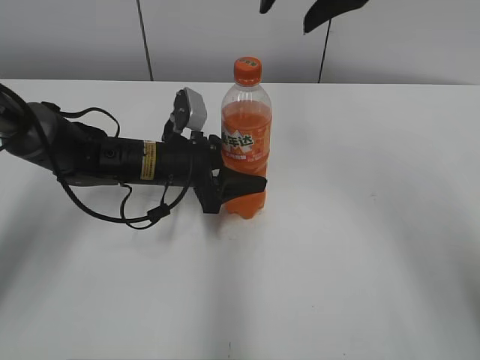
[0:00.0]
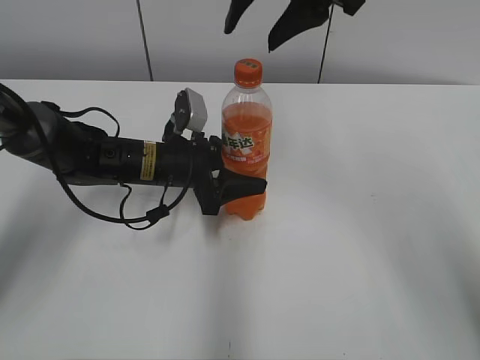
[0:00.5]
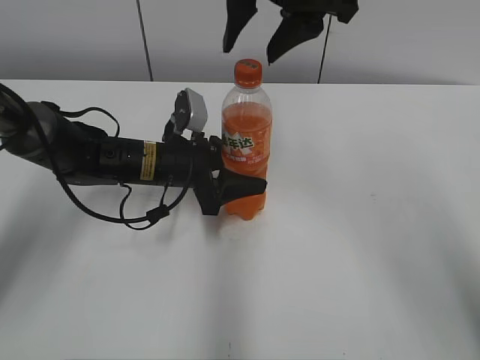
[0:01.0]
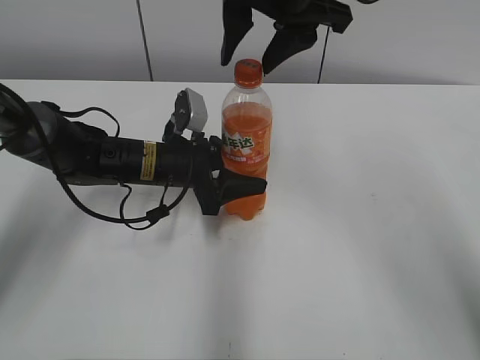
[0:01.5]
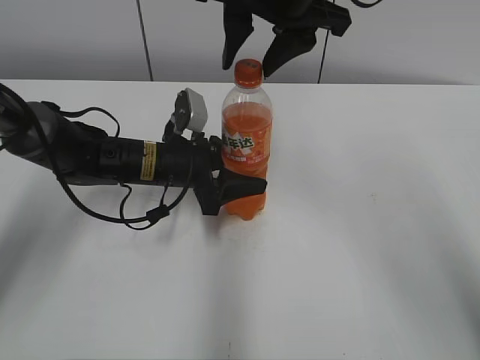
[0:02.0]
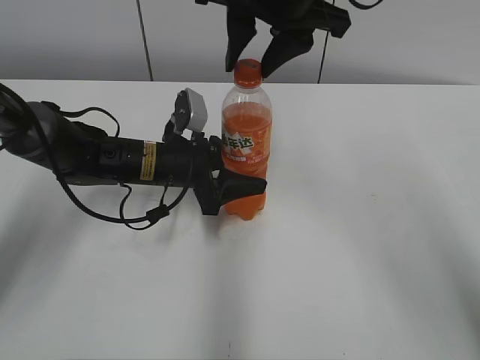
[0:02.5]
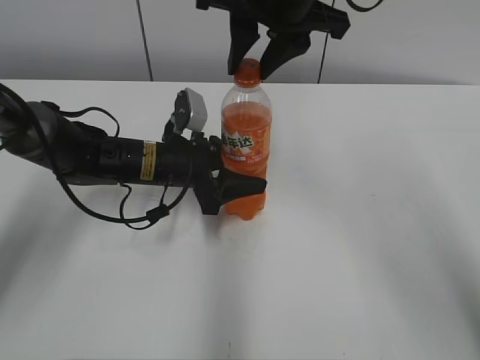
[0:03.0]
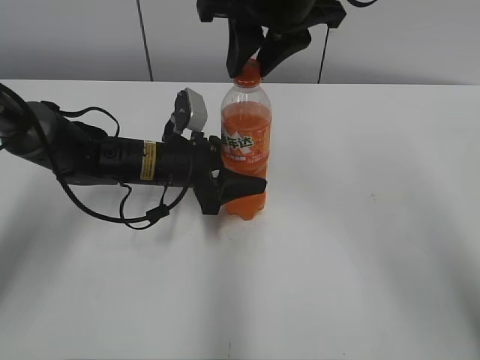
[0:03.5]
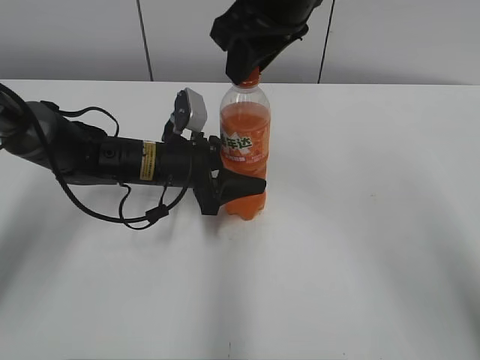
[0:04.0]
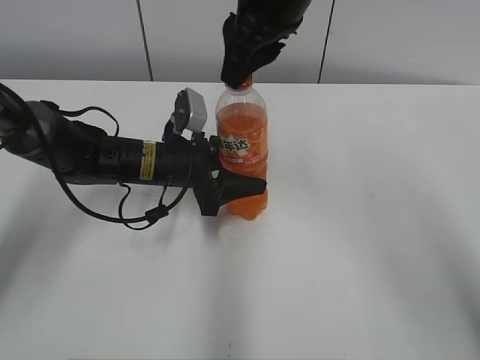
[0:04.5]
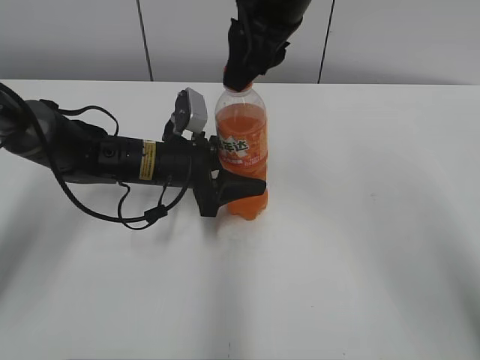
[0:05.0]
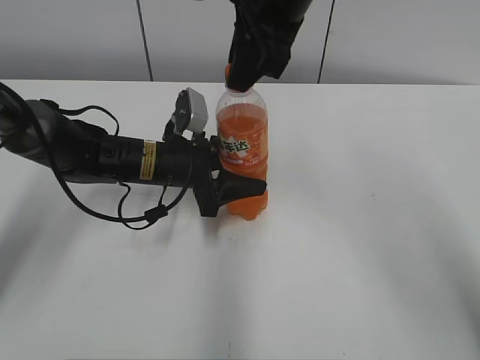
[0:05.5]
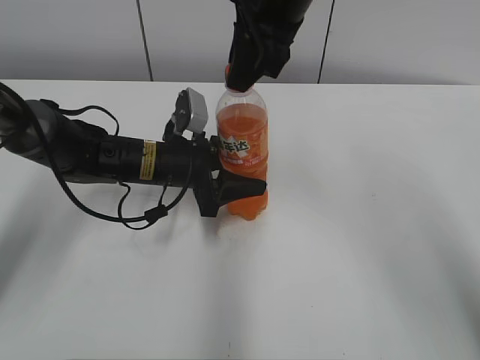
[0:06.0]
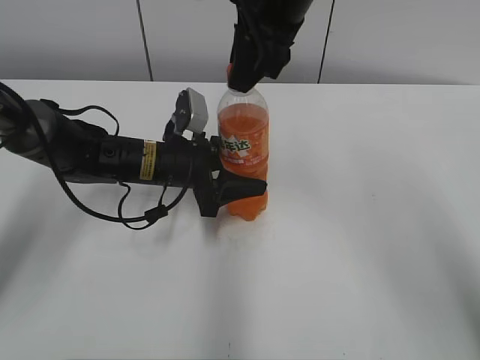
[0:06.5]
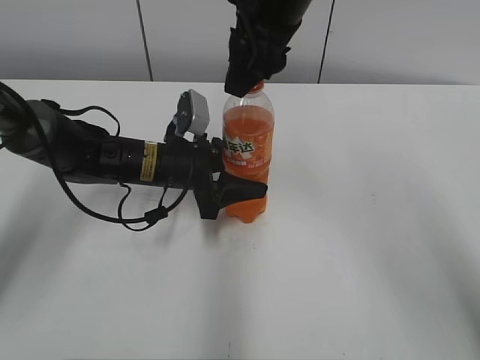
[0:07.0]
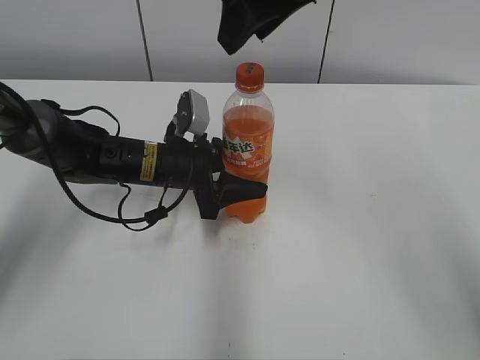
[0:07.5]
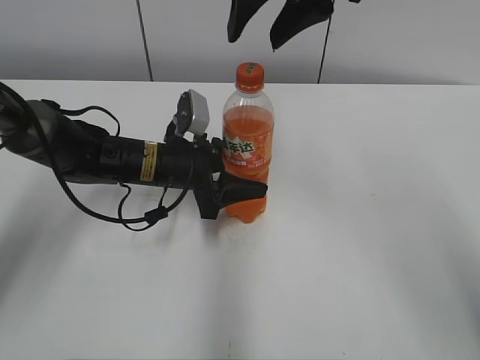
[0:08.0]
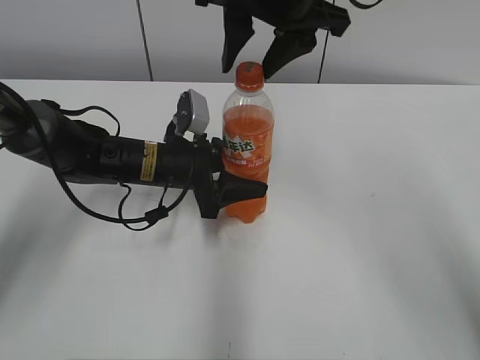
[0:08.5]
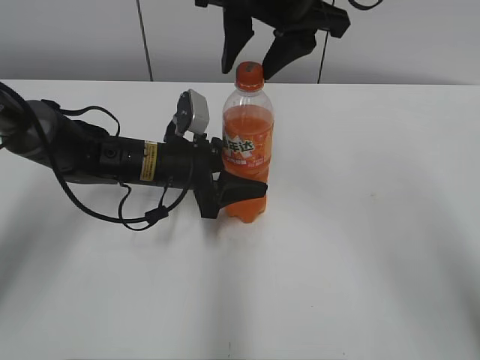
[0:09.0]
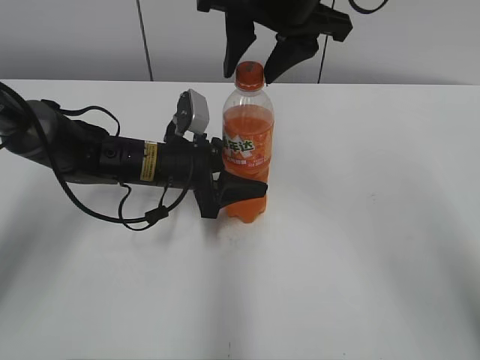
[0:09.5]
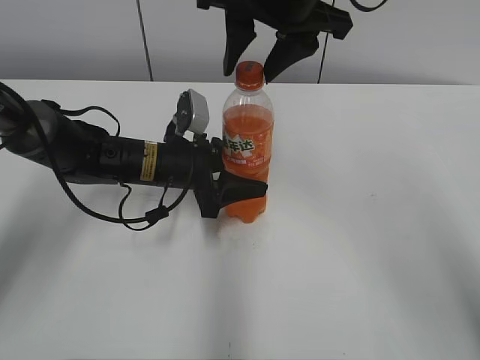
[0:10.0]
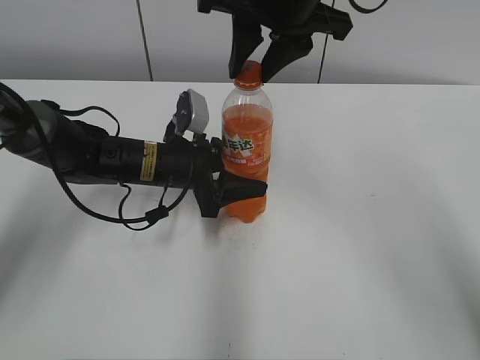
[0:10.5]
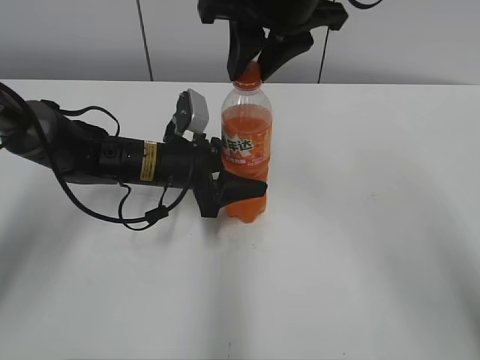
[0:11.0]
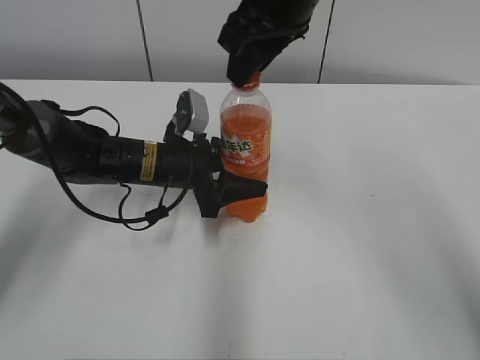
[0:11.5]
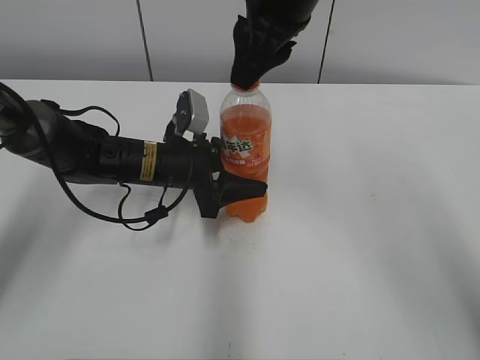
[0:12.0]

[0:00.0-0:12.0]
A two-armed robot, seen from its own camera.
0:00.0 to 0:02.0: The right gripper shifts about 5 cm to the left.
0:02.0 to 0:04.0: The right gripper closes its fingers.
0:06.0 to 0:08.0: The right gripper opens.
0:08.0 to 0:10.0: The grippers stay close to where they were, moving slightly.
0:10.0 to 0:12.0: The right gripper closes up.

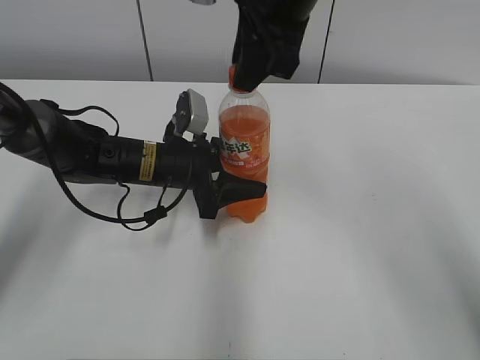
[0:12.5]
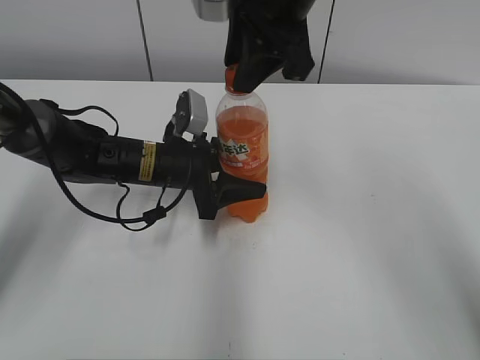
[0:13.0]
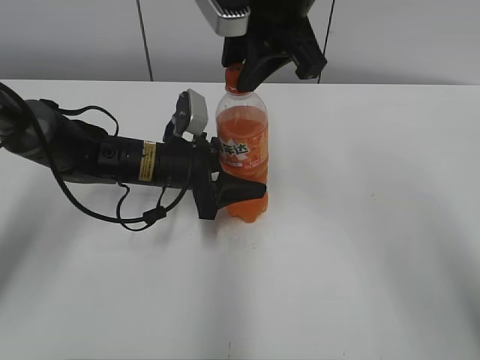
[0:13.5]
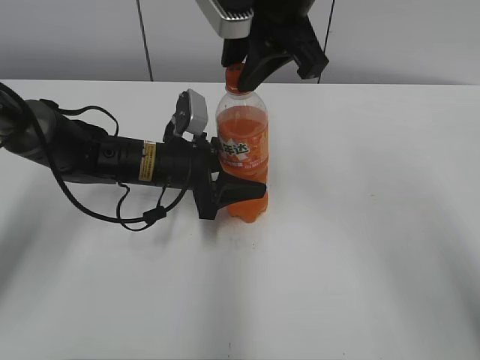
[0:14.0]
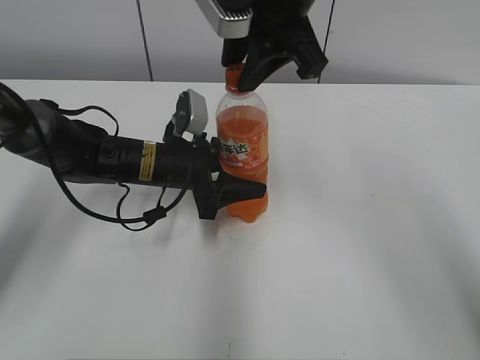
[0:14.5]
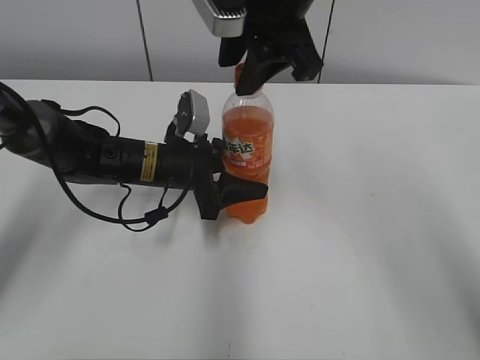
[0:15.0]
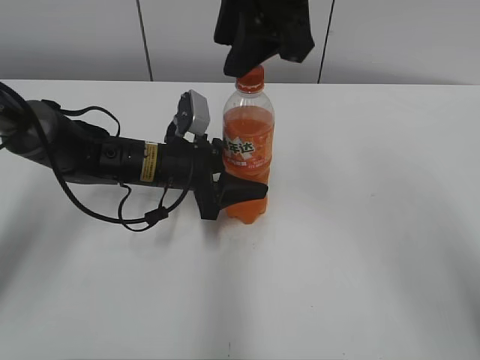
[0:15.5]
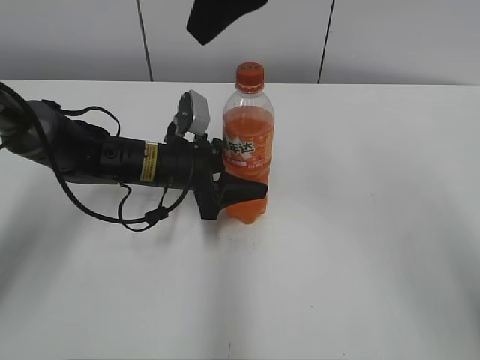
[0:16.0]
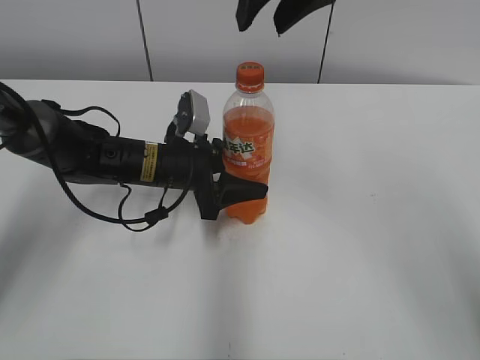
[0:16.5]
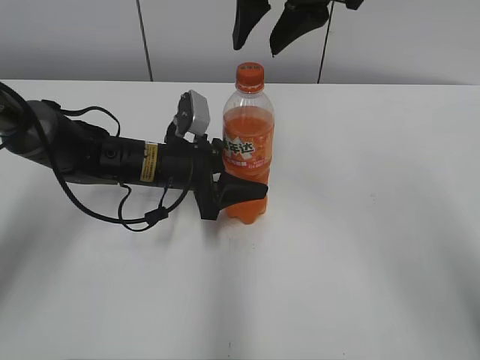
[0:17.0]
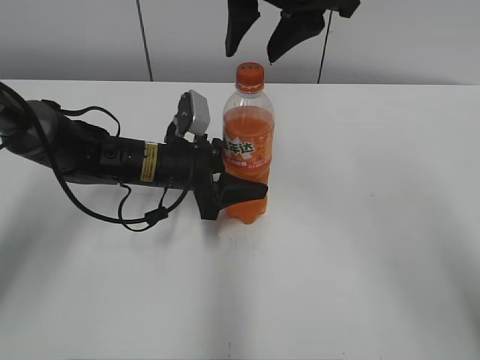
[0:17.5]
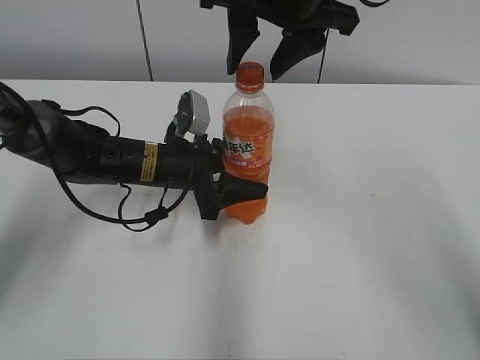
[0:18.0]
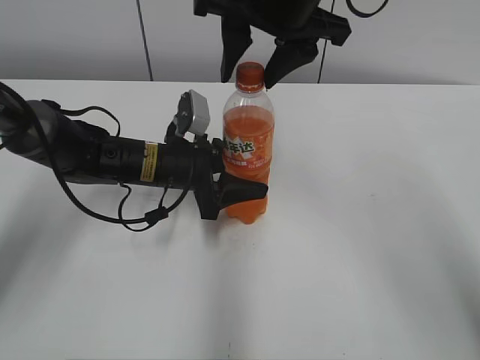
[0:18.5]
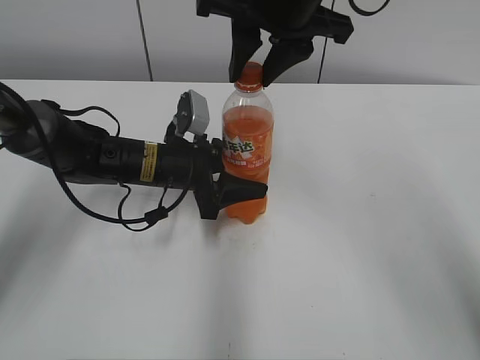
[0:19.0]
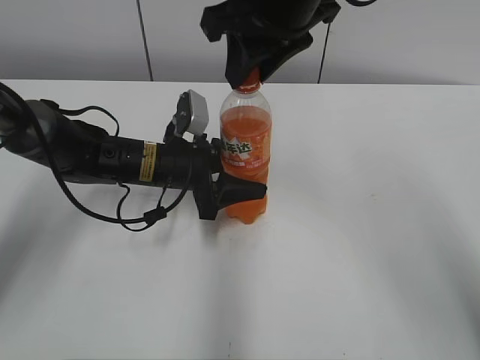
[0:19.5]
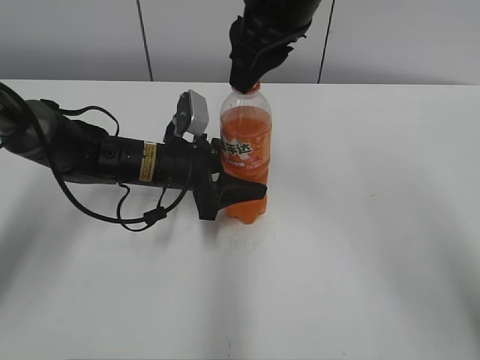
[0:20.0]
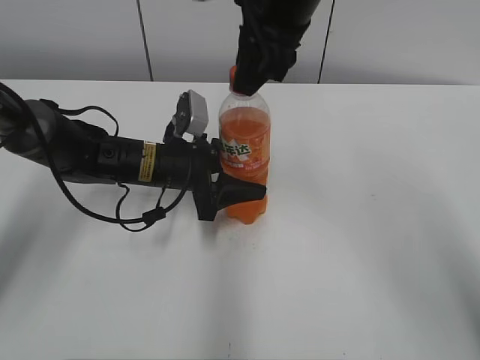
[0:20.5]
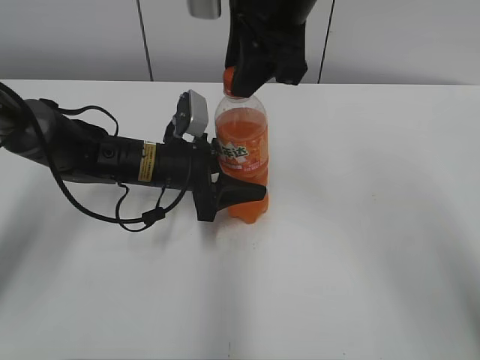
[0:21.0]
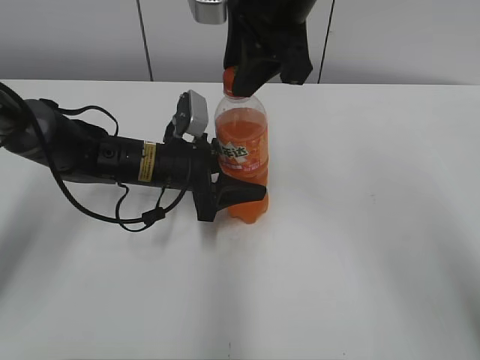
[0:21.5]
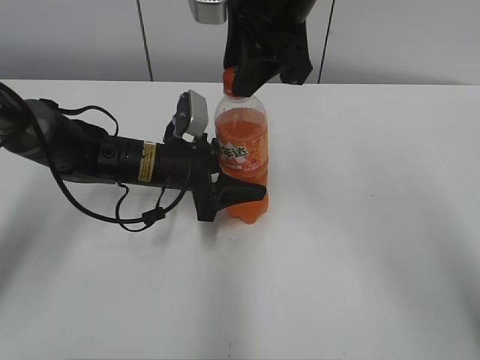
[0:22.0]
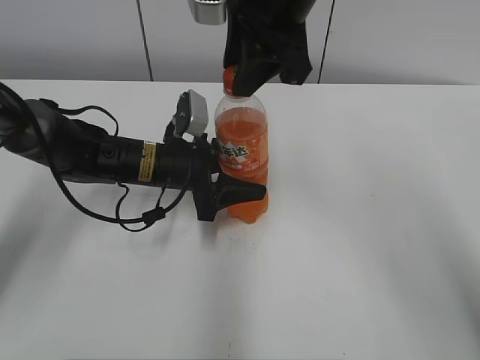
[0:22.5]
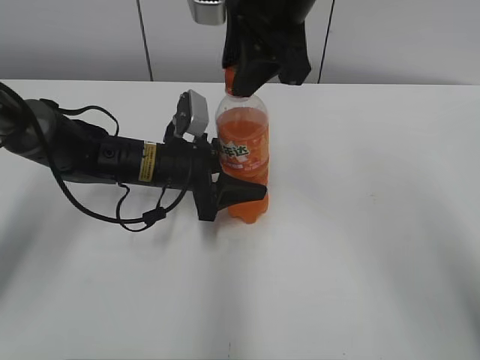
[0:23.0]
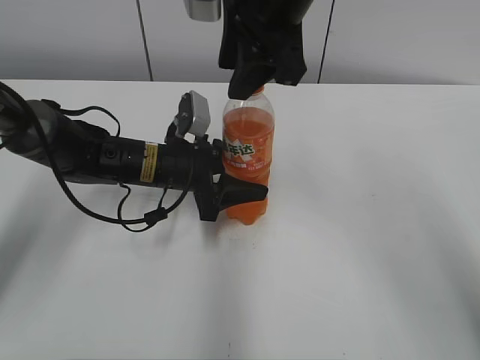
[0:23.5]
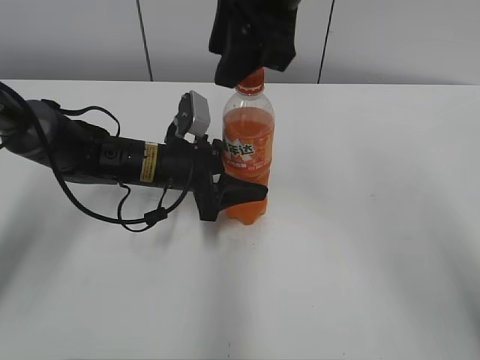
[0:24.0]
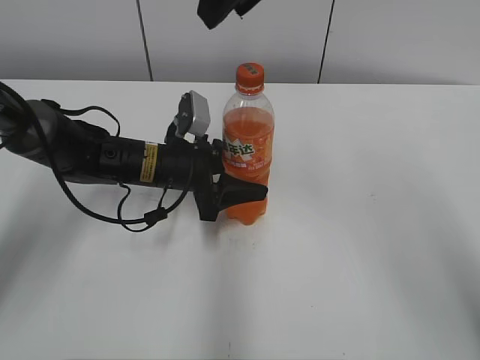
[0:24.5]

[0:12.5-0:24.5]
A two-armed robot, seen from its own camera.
0:16.5 to 0:18.5: The right gripper moves some 5 cm.
0:18.5 to 0:20.5: The right gripper closes its fingers.
0:22.5 to 0:24.5: The right gripper moves upward, some 5 cm.

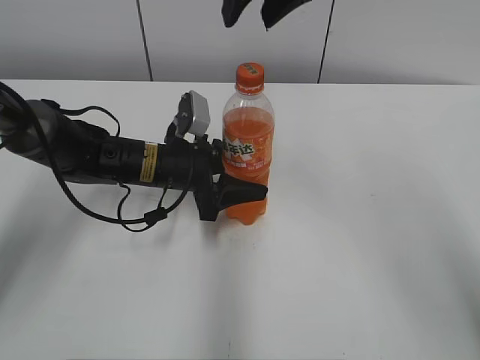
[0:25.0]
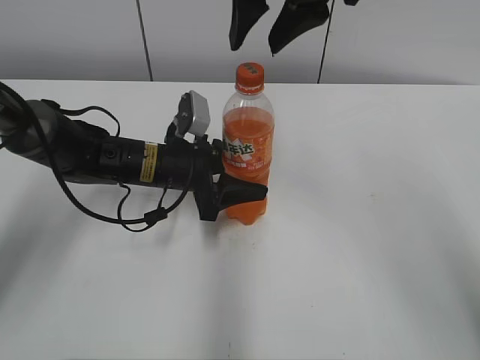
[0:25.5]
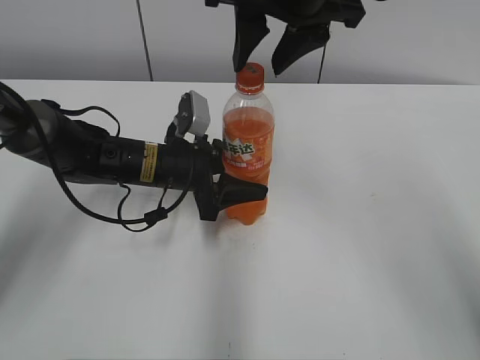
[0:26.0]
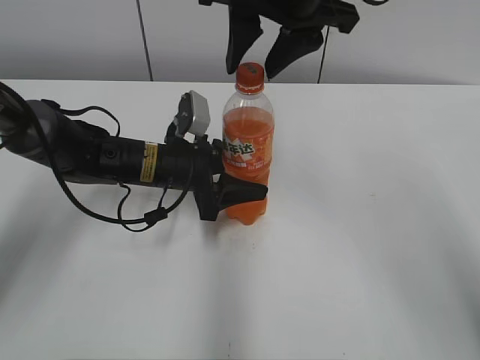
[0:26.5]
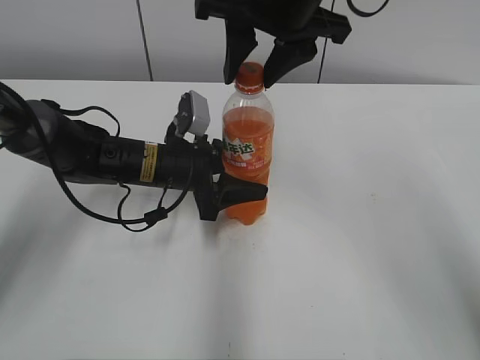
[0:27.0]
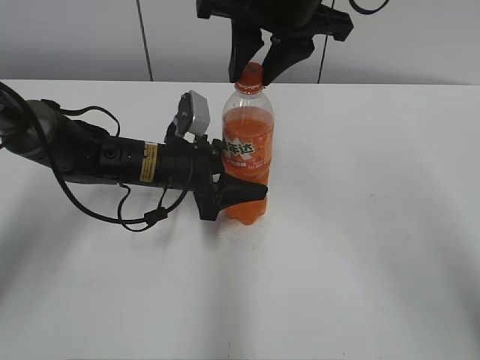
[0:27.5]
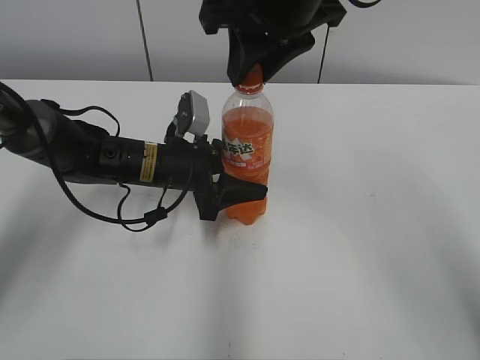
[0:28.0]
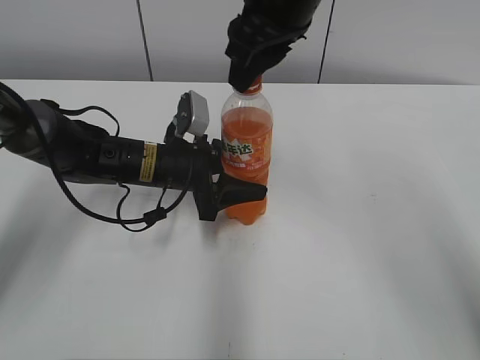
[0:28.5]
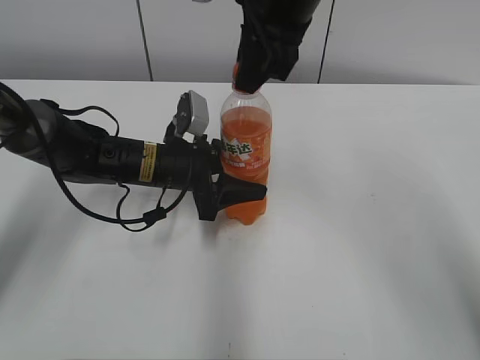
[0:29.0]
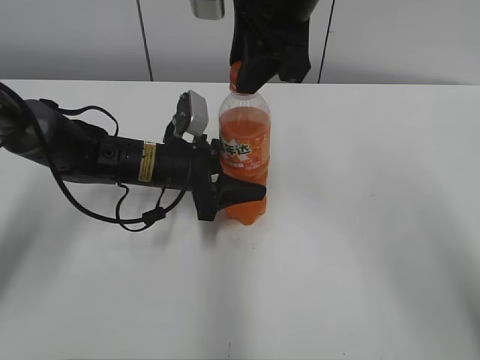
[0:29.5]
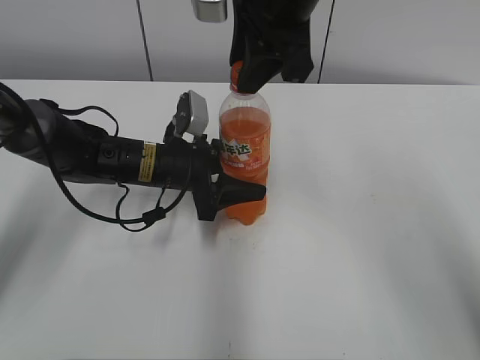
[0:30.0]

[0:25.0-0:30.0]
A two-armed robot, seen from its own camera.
0:25.0 to 0:27.5: There are only small adjustments of the grippers.
